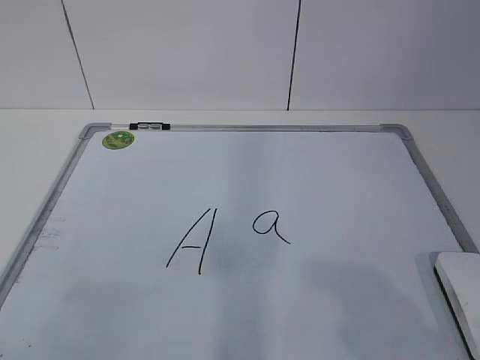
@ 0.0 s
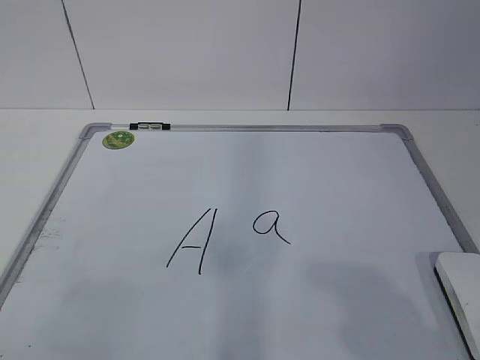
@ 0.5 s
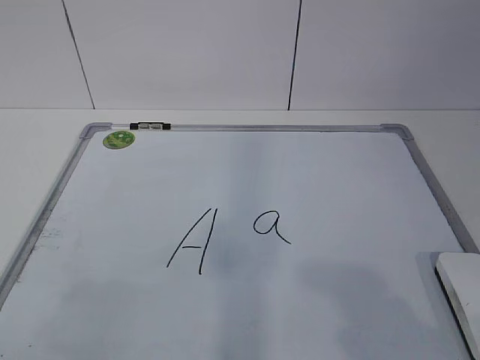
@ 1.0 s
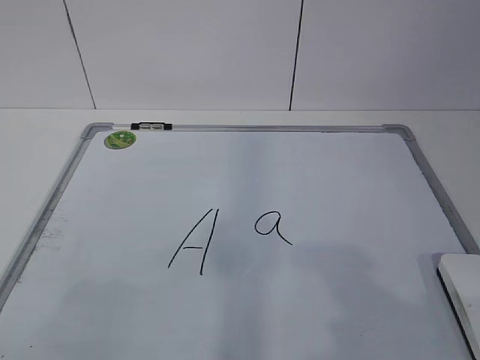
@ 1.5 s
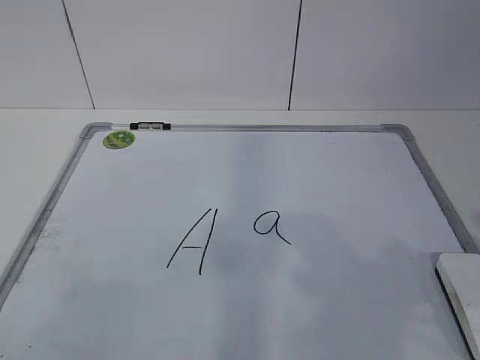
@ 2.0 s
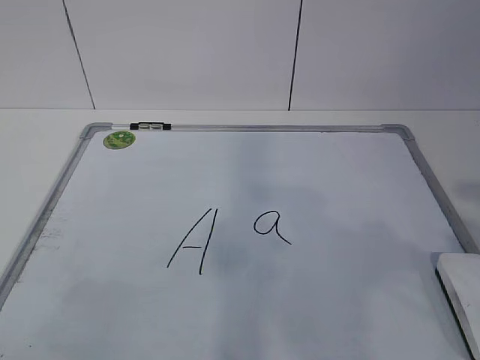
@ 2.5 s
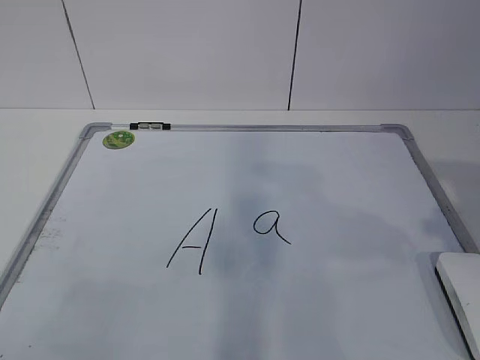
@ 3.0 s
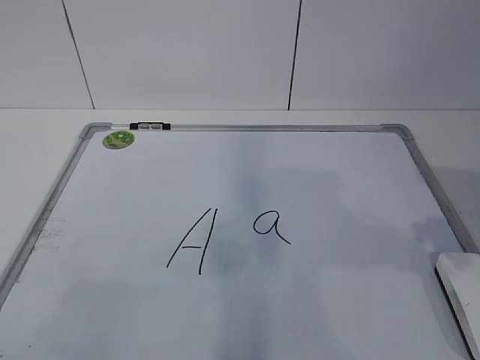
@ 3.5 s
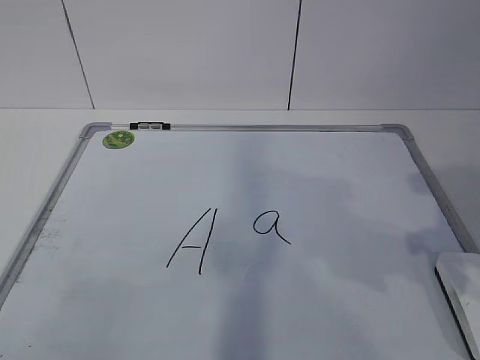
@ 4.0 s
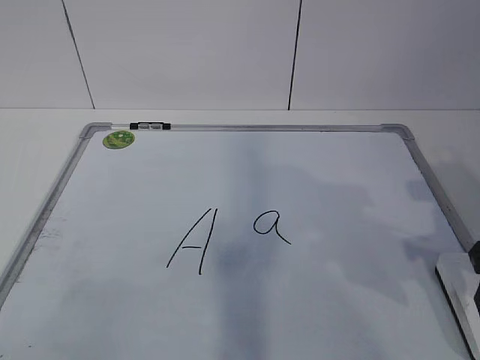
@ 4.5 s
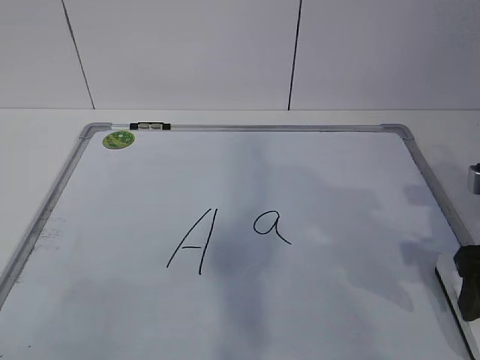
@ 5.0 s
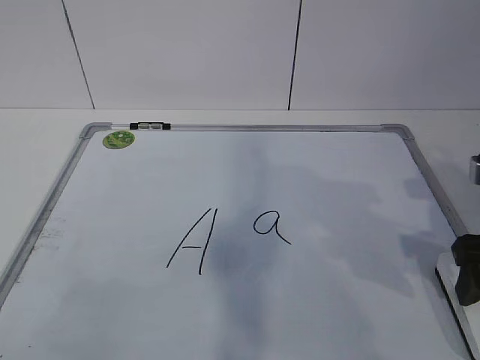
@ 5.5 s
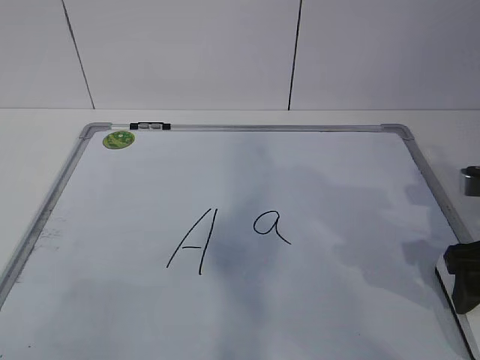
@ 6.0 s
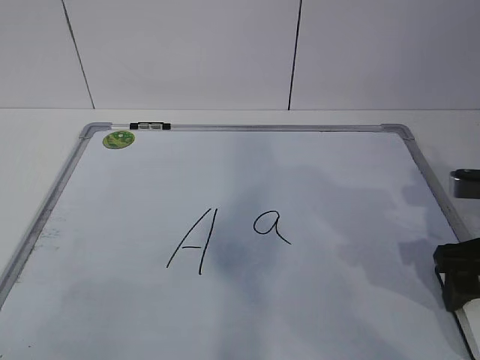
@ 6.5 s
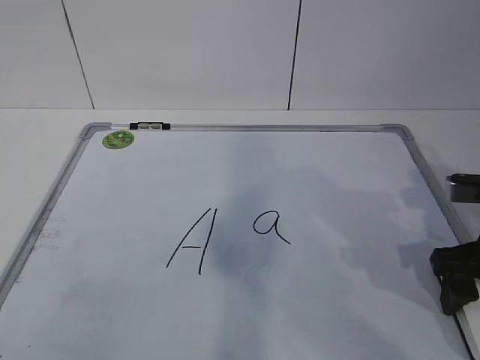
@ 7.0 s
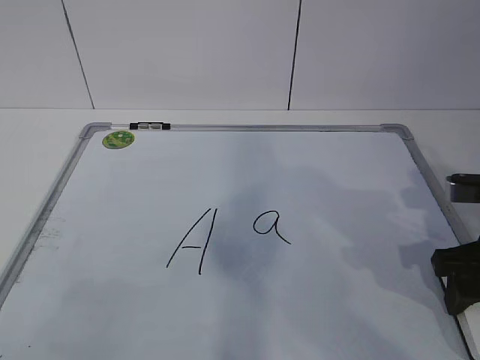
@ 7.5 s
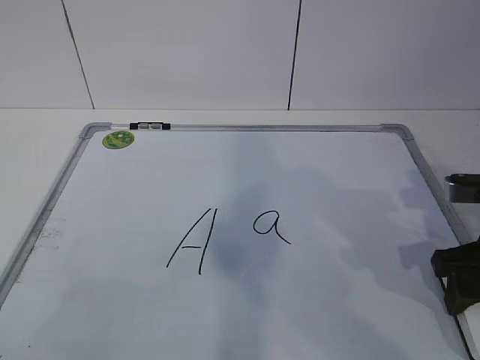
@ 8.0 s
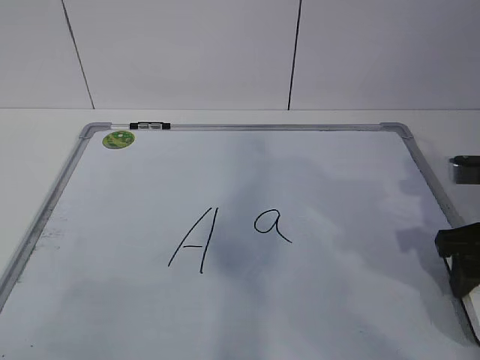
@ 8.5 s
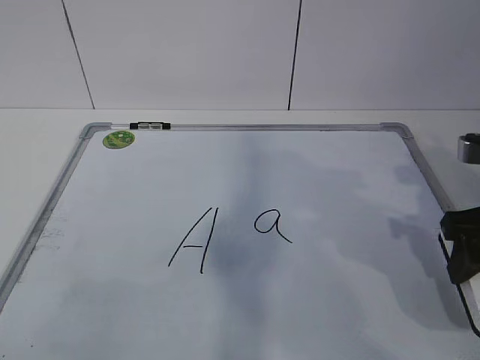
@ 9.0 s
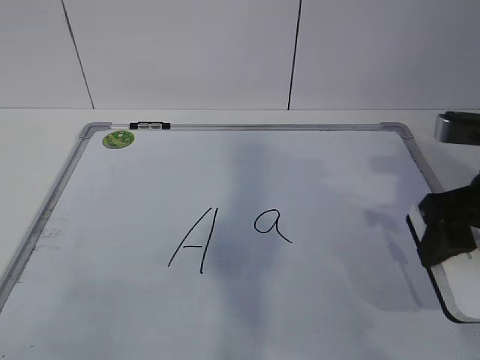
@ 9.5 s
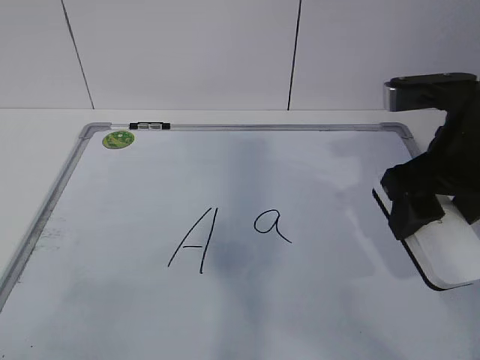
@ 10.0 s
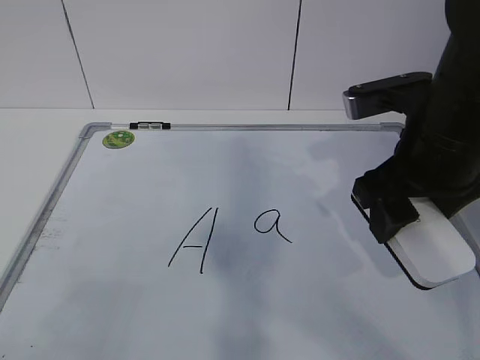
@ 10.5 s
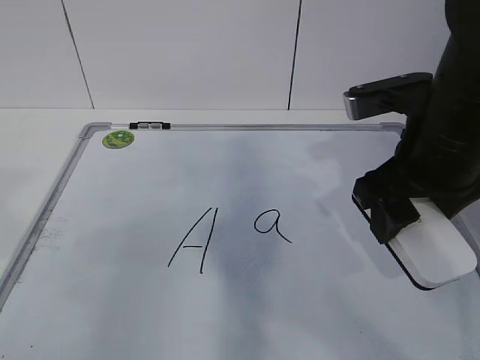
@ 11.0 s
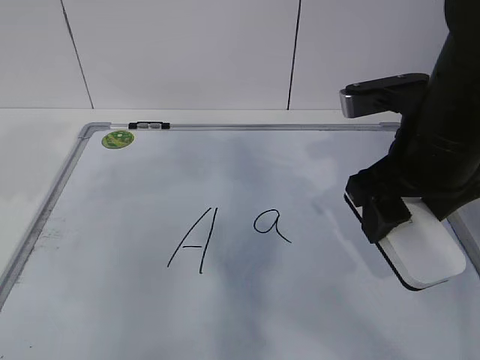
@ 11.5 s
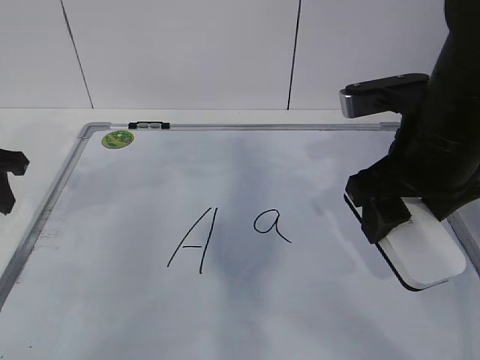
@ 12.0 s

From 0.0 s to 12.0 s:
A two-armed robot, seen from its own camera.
Task of the whole recording: pick up the eraser on the blackboard and erase the letter "a".
Step, from 0.0 s to 6.0 s: Grab the eraser with your right hand.
Step, from 6.5 s to 11.0 s: Hold the drawing board steady with your left hand.
From 2.0 s to 4.0 s: The right gripper heads forward, covering approximately 15 cm.
From 4.0 s to 6.0 s: The right gripper heads downward, covering some 5 cm, and opens up.
From 6.0 s to 8.0 s: The right gripper closes up.
From 8.0 s to 10.0 s: The right gripper shifts some 10 cm upward and to the left.
From 10.0 s to 12.0 s: The left gripper heads forward, covering some 35 cm.

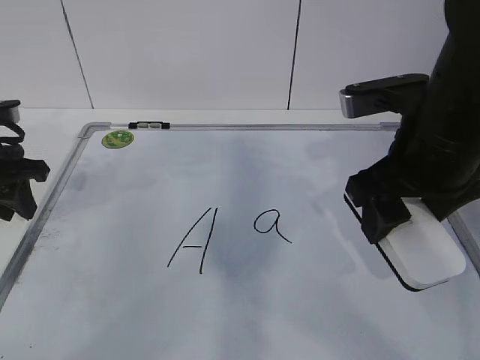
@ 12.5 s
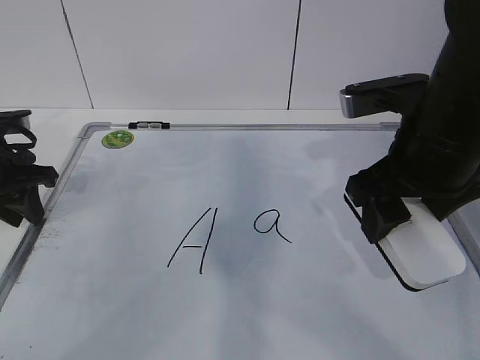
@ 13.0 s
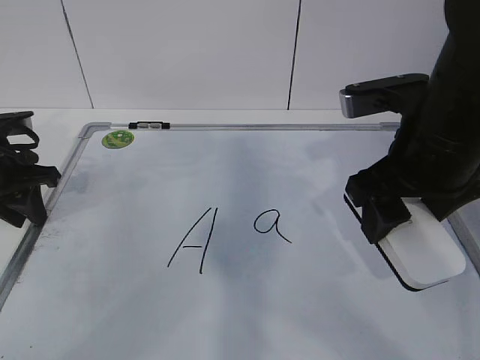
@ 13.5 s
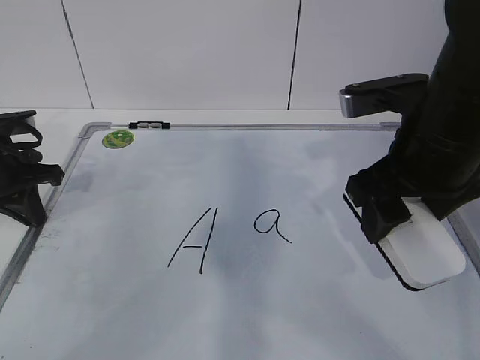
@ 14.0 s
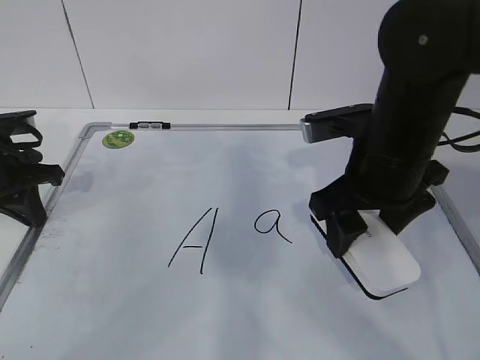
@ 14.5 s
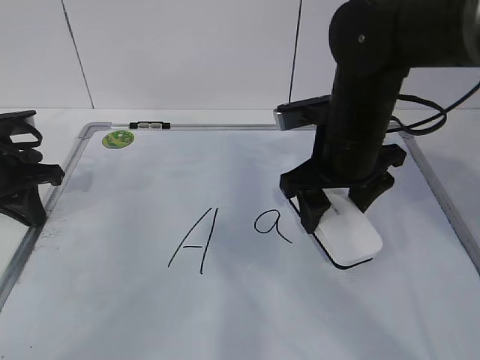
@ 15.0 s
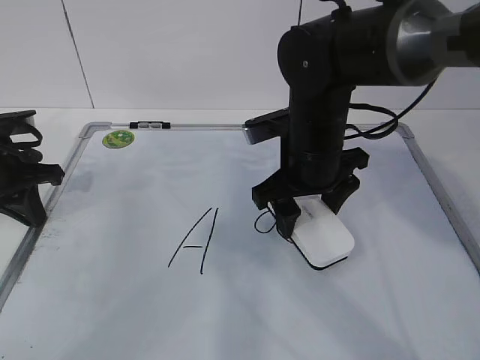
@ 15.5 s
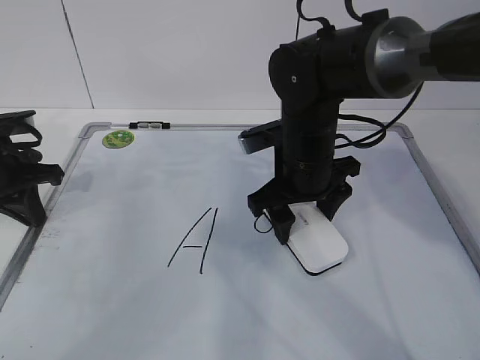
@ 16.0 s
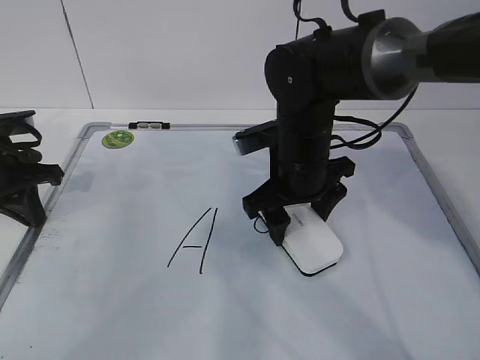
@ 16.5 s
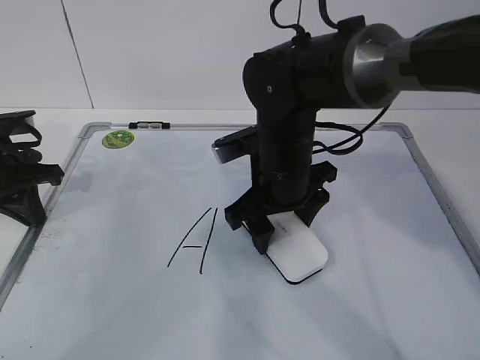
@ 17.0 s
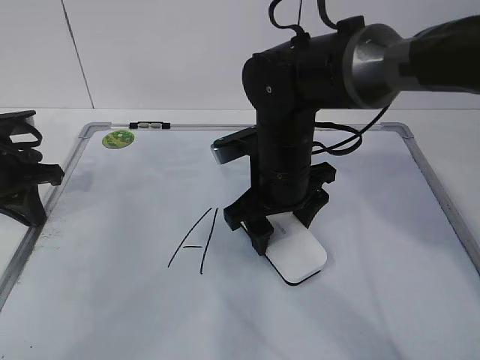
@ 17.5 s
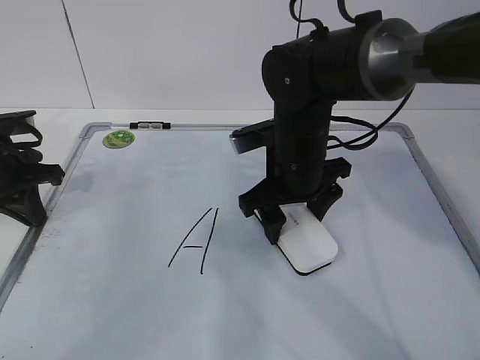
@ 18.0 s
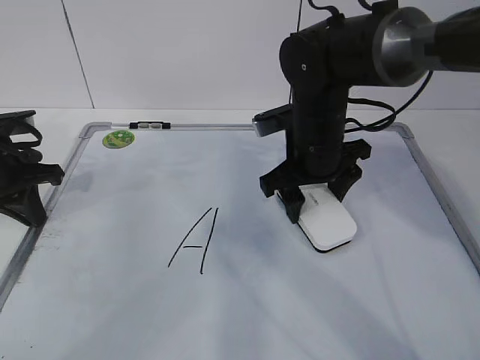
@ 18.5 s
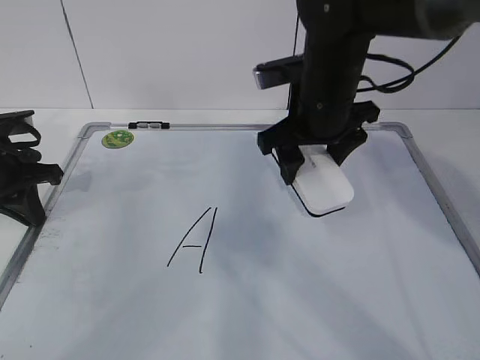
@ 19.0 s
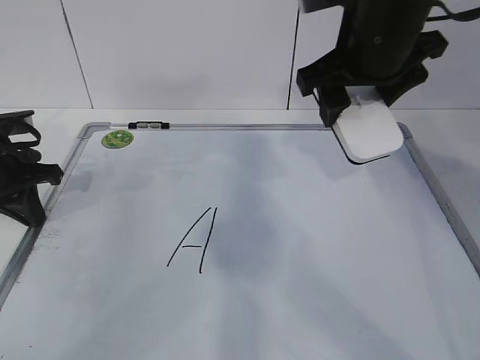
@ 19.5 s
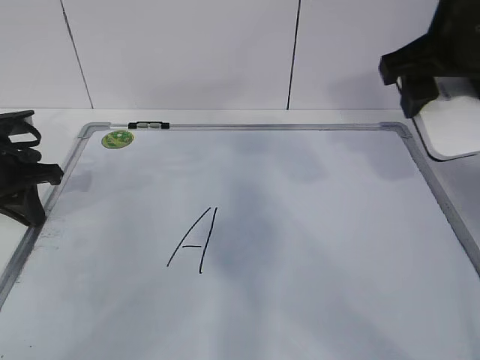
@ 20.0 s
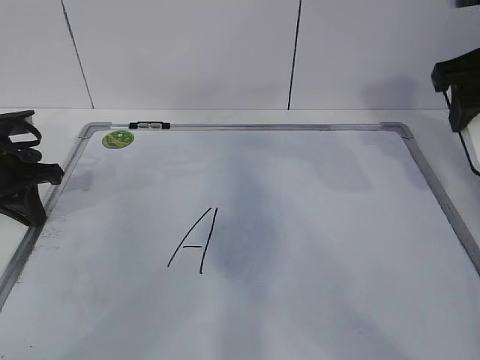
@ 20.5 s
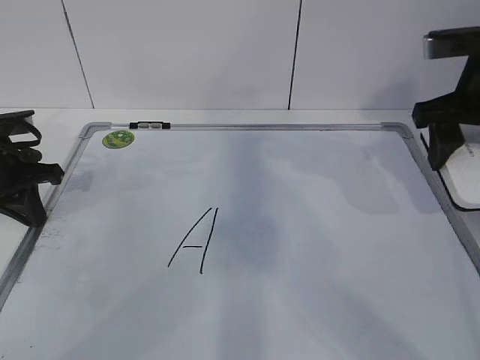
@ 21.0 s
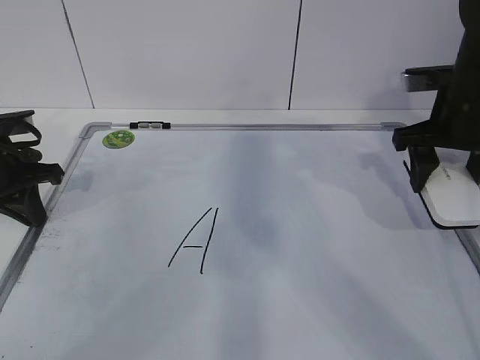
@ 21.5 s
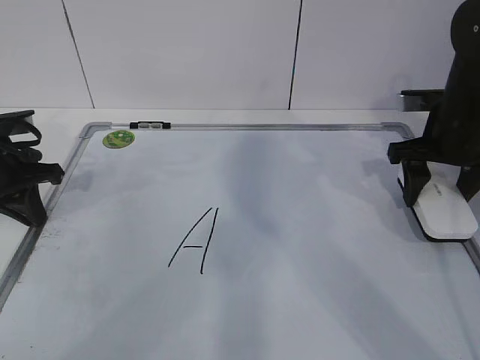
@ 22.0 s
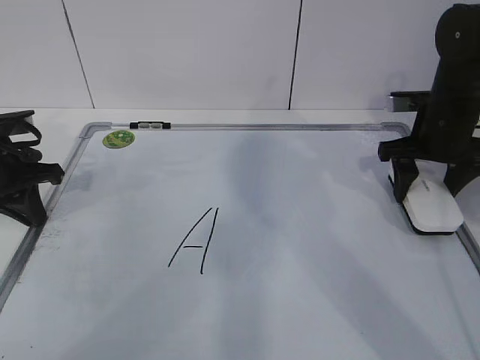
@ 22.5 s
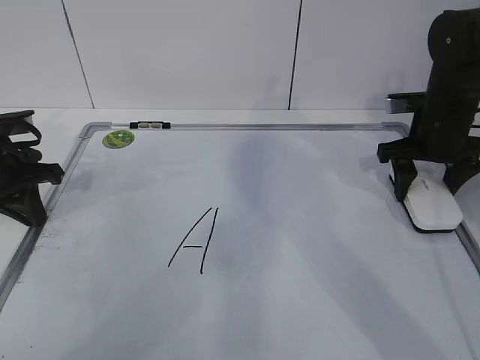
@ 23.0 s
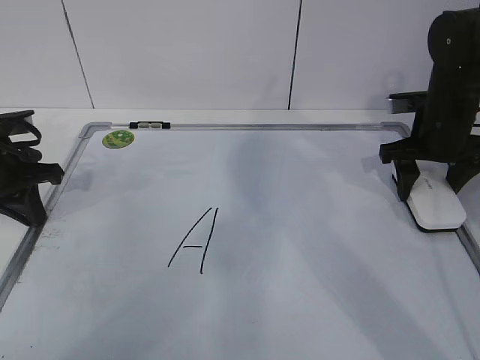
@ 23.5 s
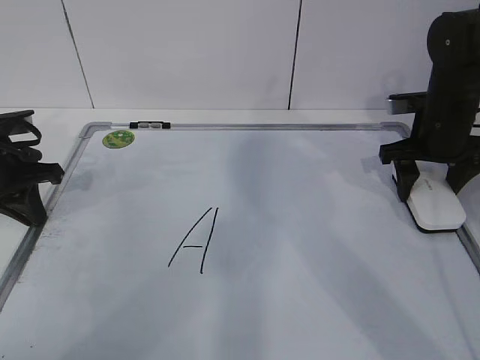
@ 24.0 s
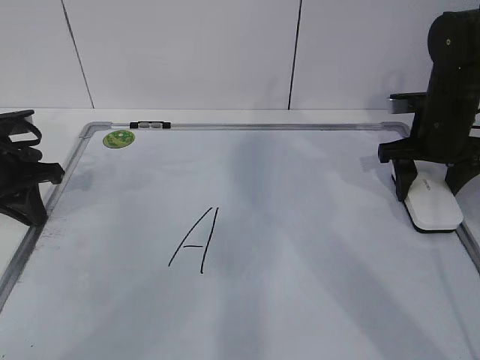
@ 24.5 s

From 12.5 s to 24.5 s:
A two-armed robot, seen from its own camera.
Task of the whole recording: pick up the eraser on the blackboard and erase the letter "a".
Step, from 12.5 s to 15.0 s: Erase the letter a with your right hand.
Step, from 15.5 s to 20.5 s: Put down the eraser with your right hand.
From 12.5 s to 14.5 s: The right gripper changes place by roughly 5 cm, while the left gripper closes.
From 14.5 s to 16.5 s: The right gripper heads to the left, forward and downward, covering some 10 cm.
From 16.5 s to 18.5 s: The grippers stay close to where they were, moving slightly.
From 18.5 s to 20.5 s: The right gripper travels to the right, upward and backward by about 20 cm.
From 20.5 s to 22.5 s: The right gripper shifts about 15 cm downward and forward.
From 22.5 s to 24.5 s: Both grippers stay about where they are.

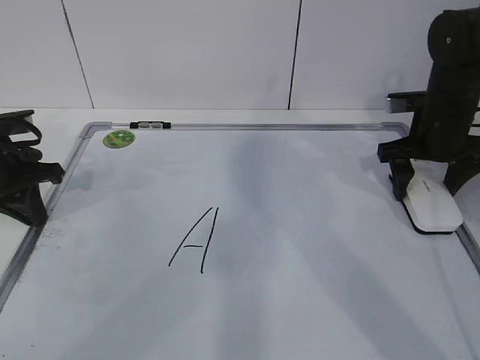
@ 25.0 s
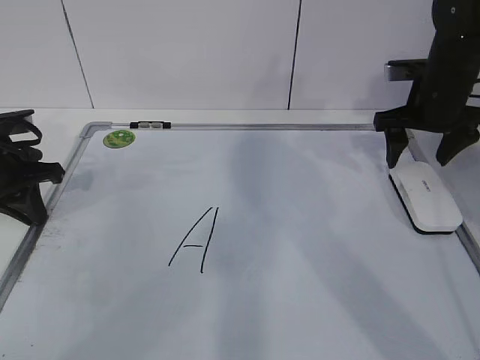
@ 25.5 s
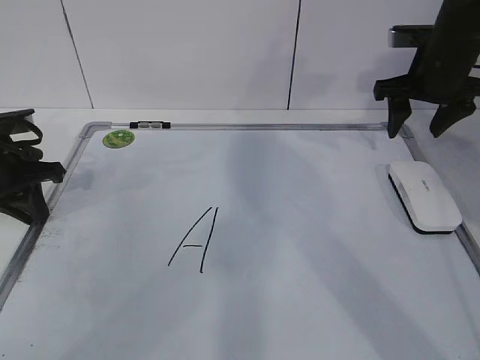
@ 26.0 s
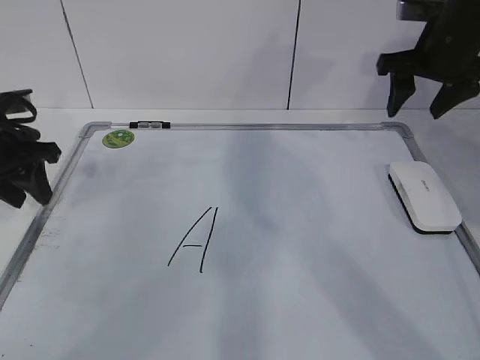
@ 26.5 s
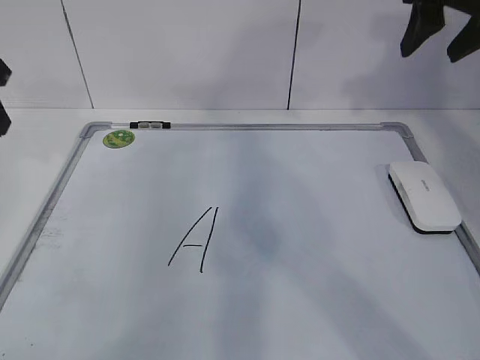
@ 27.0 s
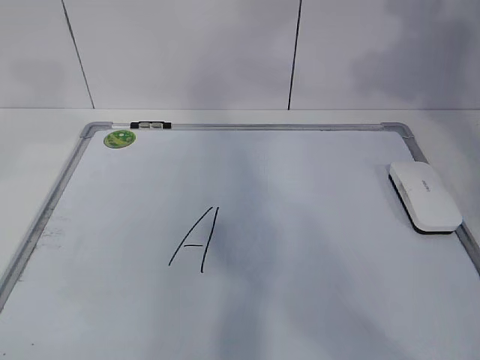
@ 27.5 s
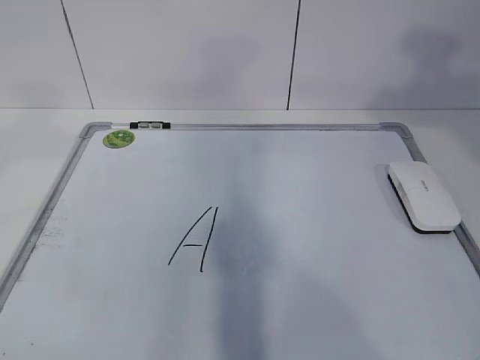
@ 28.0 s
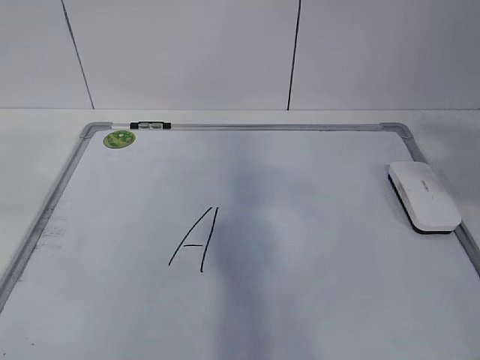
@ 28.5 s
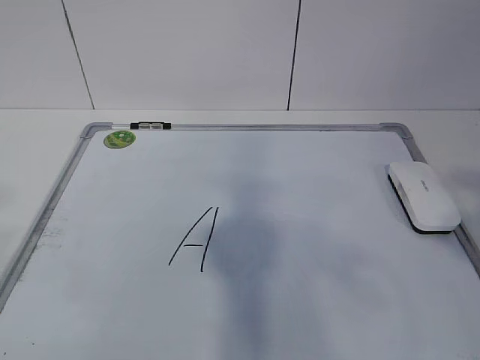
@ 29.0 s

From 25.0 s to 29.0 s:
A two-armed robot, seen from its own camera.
Task of the whole recording: pick up the eraser on the blackboard and erase the letter "a".
From 25.0 s to 27.0 s: The two grippers go approximately 15 cm upward. The left gripper opens up, while the right gripper closes up.
From 27.0 s to 29.0 s: Both grippers move backward, approximately 35 cm.
